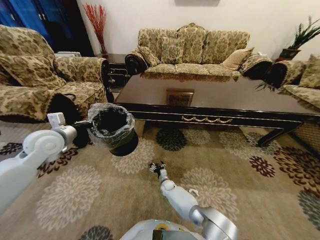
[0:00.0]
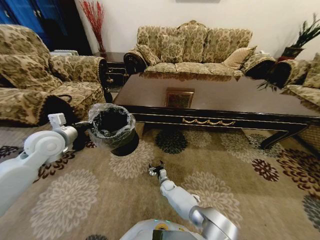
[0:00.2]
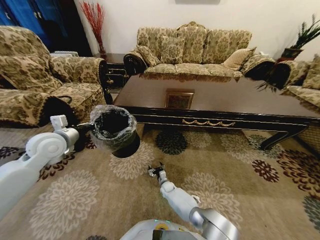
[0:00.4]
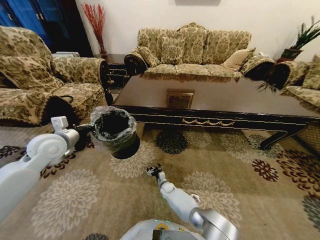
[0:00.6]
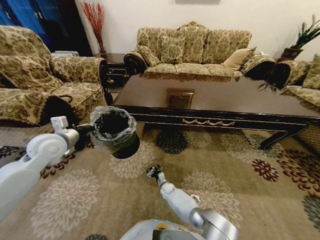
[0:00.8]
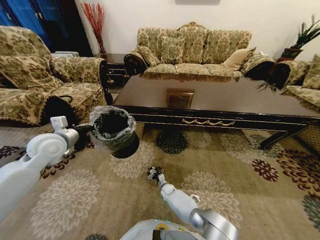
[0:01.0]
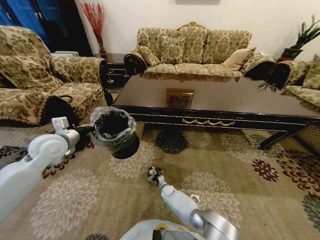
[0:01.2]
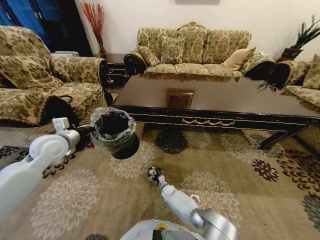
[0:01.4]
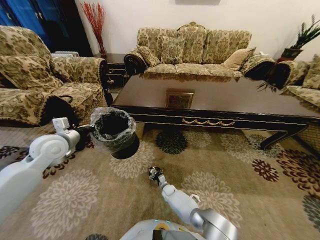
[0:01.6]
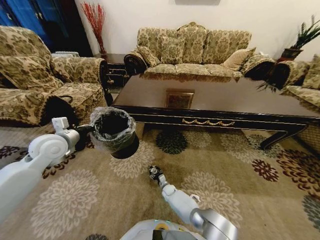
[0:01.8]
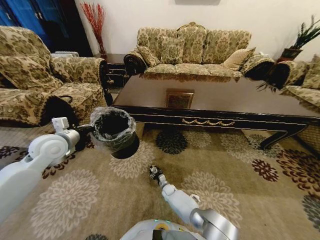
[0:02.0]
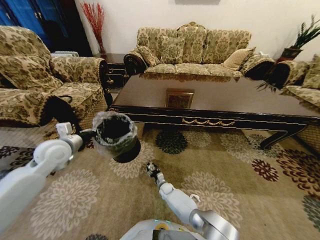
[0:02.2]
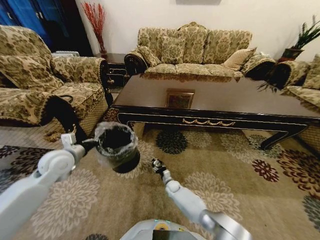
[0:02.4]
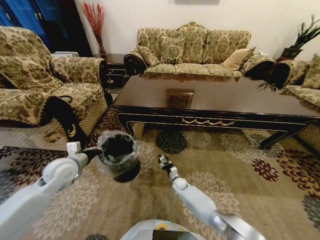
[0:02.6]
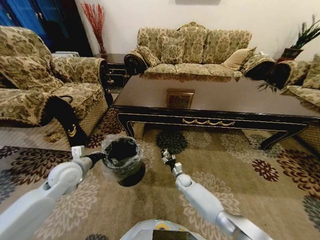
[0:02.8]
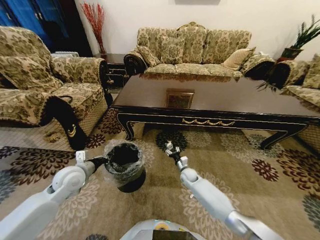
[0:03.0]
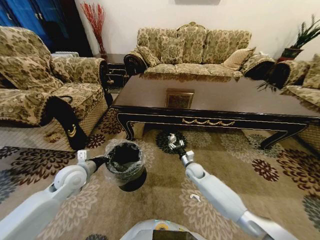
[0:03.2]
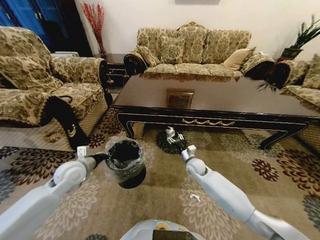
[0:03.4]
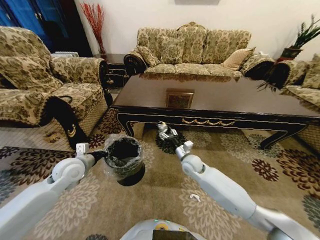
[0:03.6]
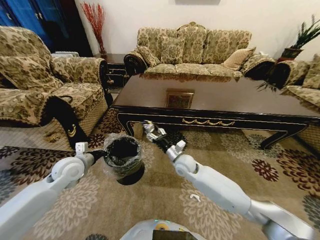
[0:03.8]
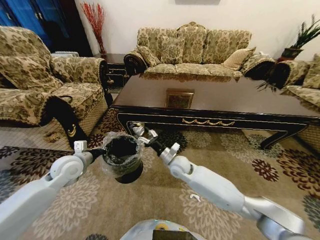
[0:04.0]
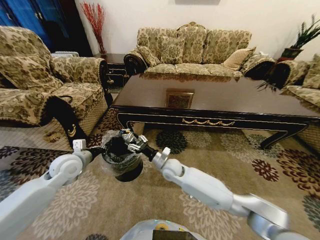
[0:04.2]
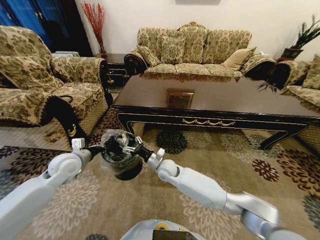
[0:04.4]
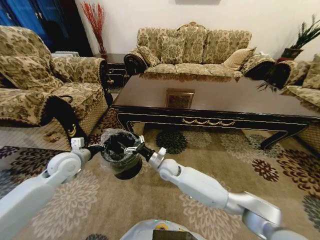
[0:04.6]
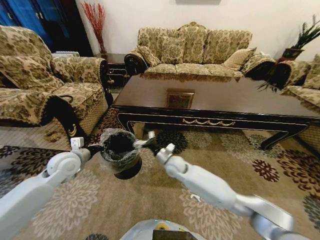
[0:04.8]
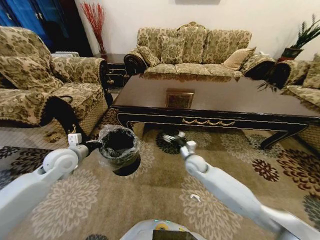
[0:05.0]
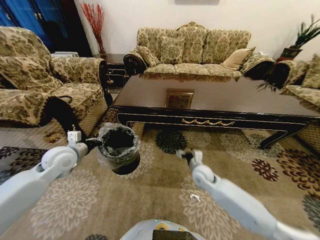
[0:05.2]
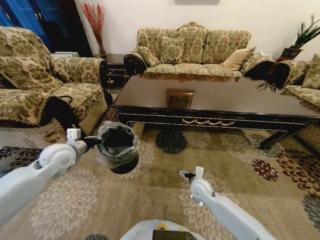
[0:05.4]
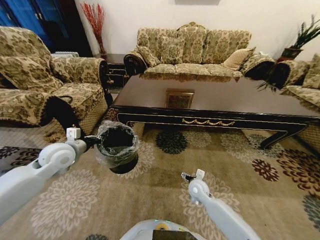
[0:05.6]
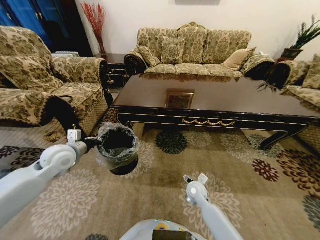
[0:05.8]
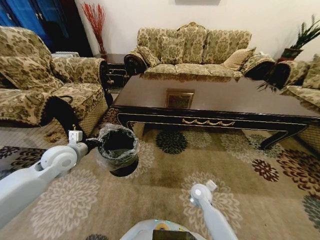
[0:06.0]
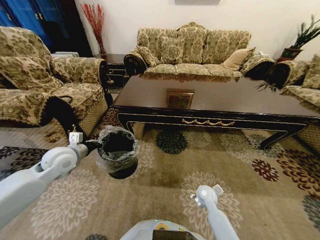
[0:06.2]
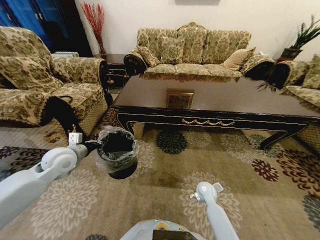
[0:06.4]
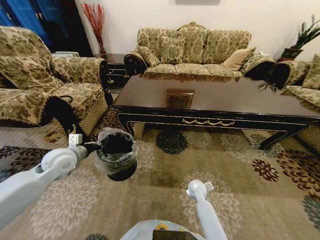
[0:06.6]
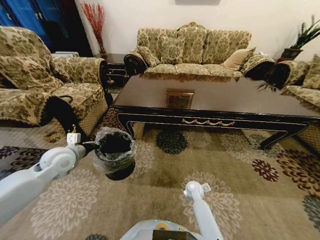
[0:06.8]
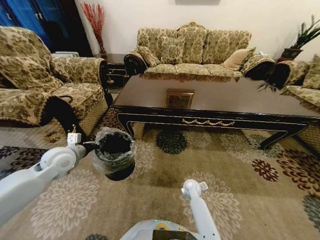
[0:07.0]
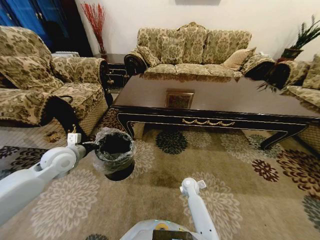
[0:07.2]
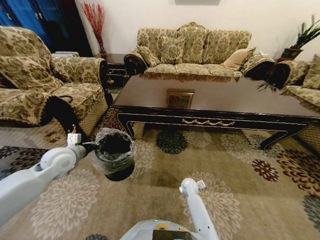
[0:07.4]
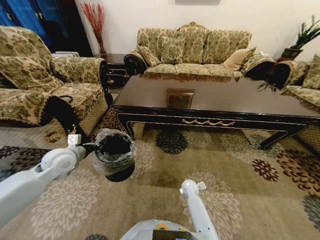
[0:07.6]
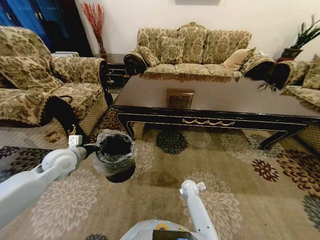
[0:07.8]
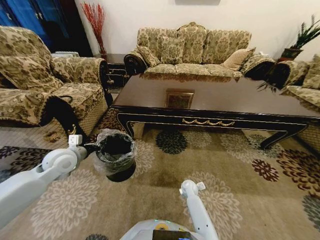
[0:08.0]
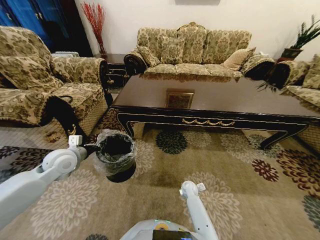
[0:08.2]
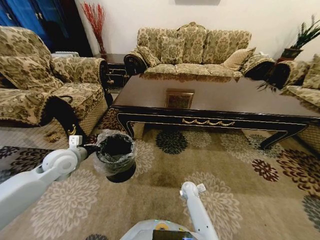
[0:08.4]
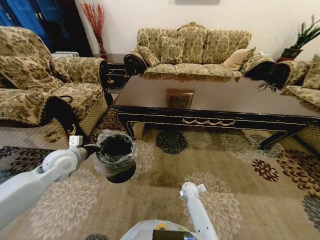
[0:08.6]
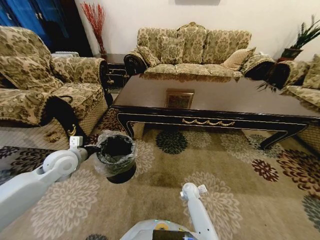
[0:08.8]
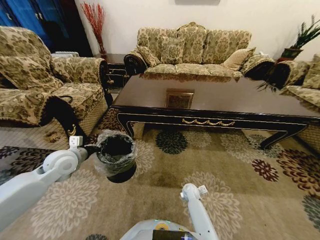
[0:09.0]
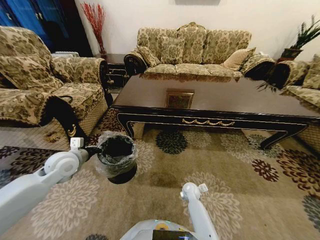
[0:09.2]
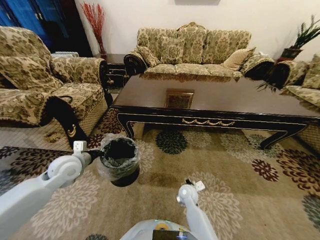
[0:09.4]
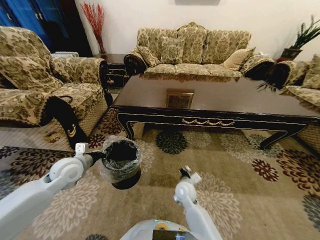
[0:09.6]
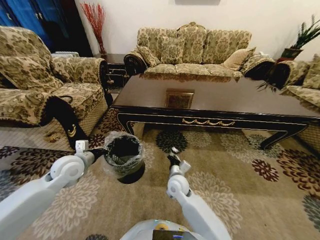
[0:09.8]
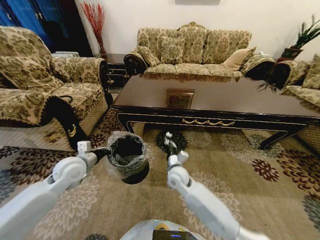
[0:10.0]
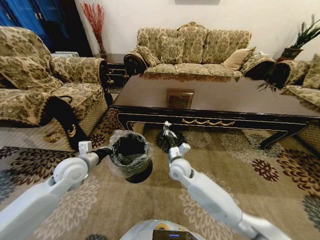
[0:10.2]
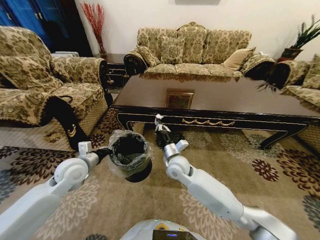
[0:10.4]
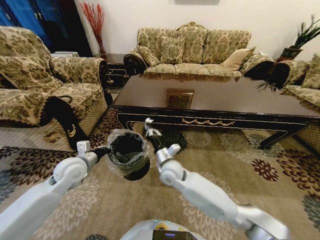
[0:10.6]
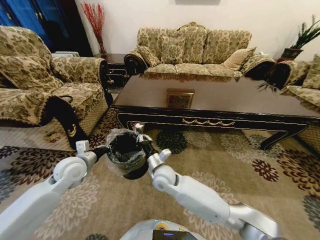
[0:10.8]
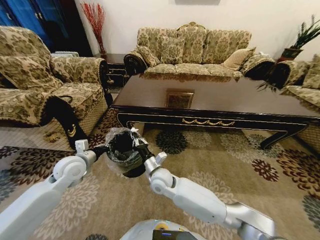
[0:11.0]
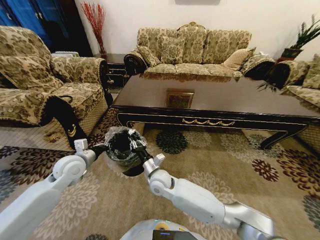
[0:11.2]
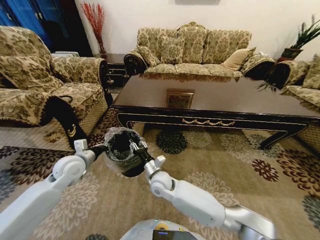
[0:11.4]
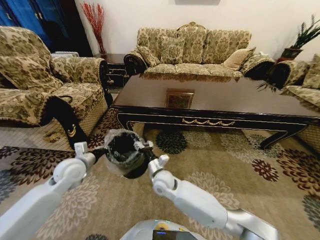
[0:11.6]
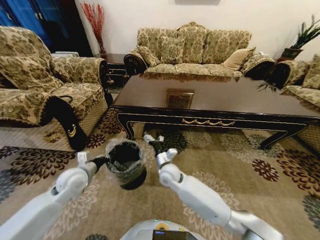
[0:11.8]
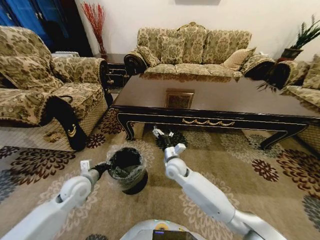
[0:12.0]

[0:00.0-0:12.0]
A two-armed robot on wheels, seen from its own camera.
Task of the whole recording: Move to the front of the table and pick up the trash from the floor, then place it into the trash bin.
0:01.6 to 0:03.0: The left gripper travels downward and backward by some 15 cm, while the right gripper goes about 20 cm upward and to the right.
0:03.0 to 0:04.4: The right gripper is displaced to the left and upward by approximately 20 cm, while the left gripper changes place by some 5 cm.
0:04.4 to 0:06.0: The right gripper heads to the right, downward and backward, covering roughly 20 cm.
0:06.0 to 0:07.6: The right gripper moves downward and forward, some 10 cm.
0:07.6 to 0:09.0: The right gripper closes up.
0:09.0 to 0:10.4: The right gripper moves upward and to the left, some 30 cm. Meanwhile the left gripper ends up approximately 5 cm from where it was.
0:10.4 to 0:12.0: The right gripper travels to the left and back again, some 10 cm each way, and opens its fingers. The left gripper travels downward by some 10 cm.

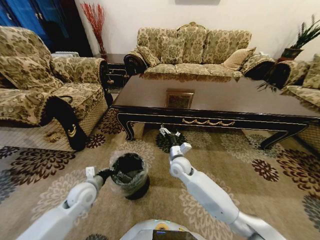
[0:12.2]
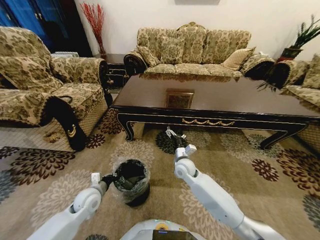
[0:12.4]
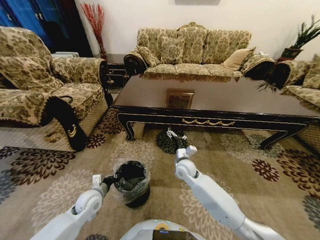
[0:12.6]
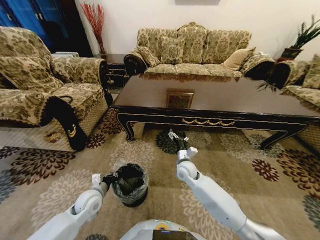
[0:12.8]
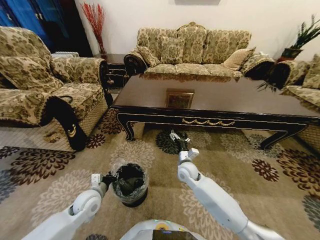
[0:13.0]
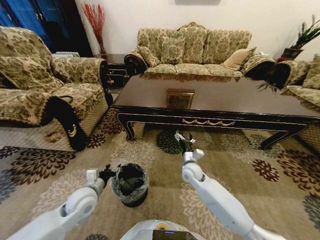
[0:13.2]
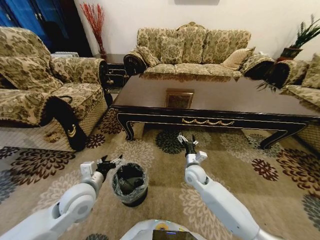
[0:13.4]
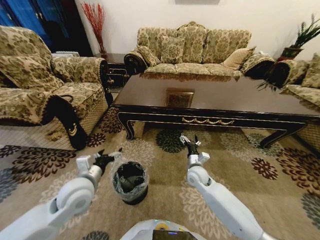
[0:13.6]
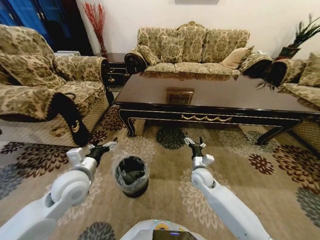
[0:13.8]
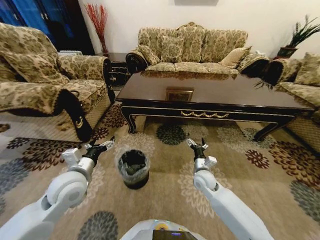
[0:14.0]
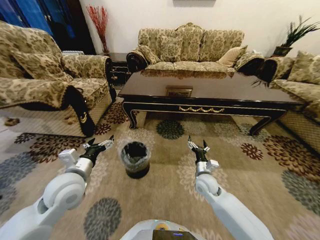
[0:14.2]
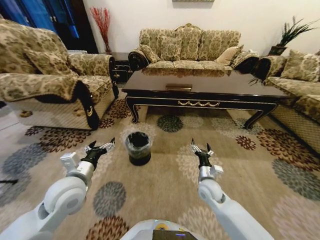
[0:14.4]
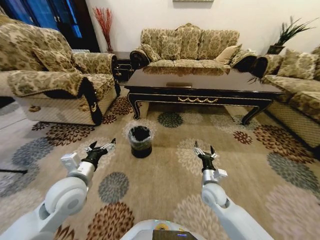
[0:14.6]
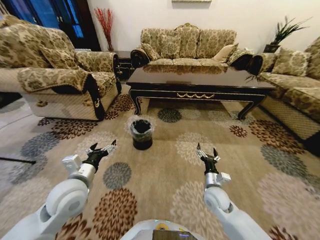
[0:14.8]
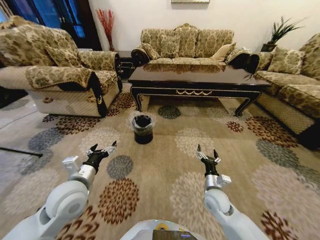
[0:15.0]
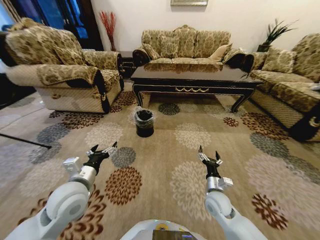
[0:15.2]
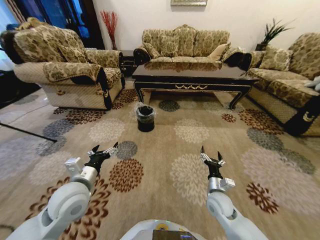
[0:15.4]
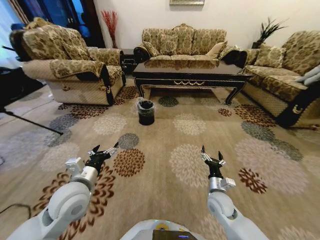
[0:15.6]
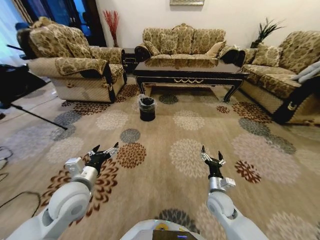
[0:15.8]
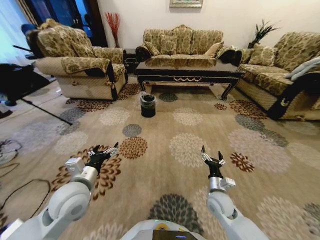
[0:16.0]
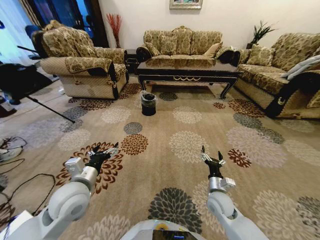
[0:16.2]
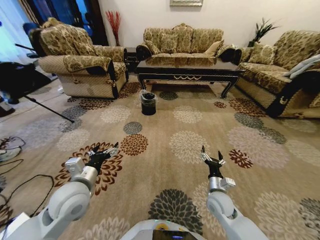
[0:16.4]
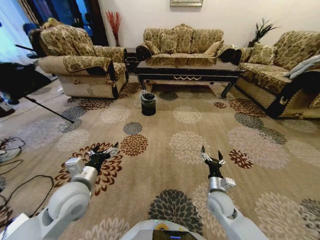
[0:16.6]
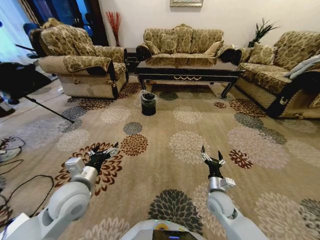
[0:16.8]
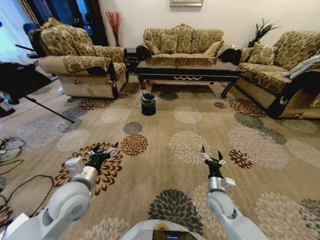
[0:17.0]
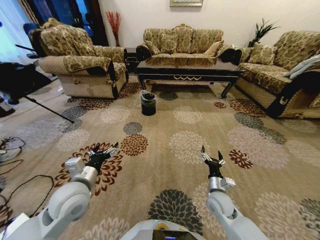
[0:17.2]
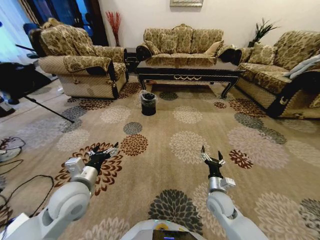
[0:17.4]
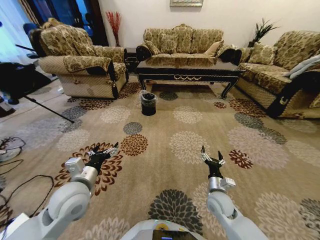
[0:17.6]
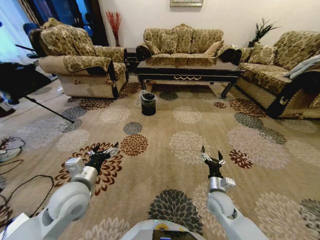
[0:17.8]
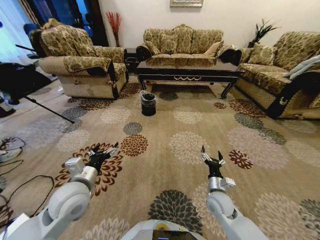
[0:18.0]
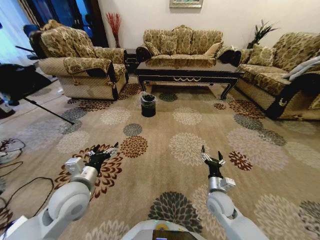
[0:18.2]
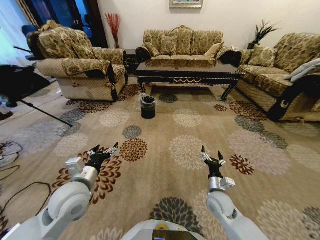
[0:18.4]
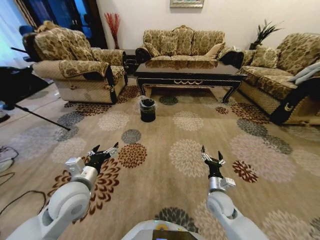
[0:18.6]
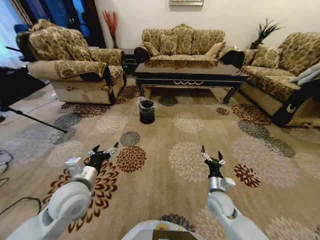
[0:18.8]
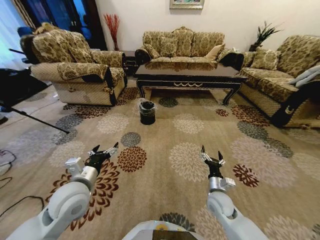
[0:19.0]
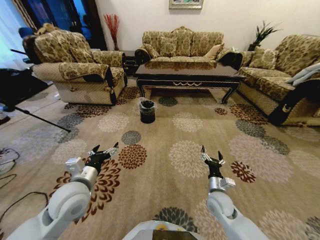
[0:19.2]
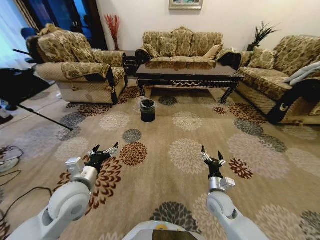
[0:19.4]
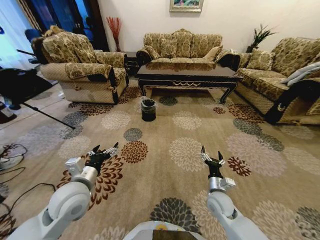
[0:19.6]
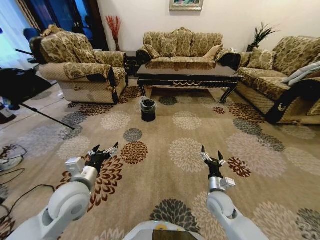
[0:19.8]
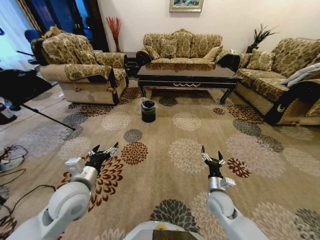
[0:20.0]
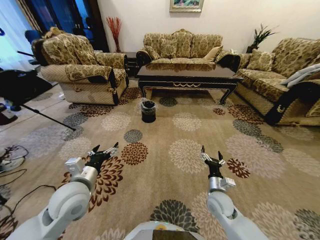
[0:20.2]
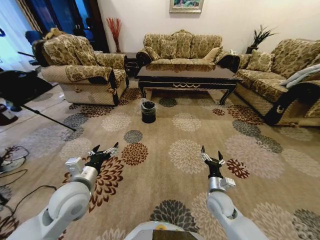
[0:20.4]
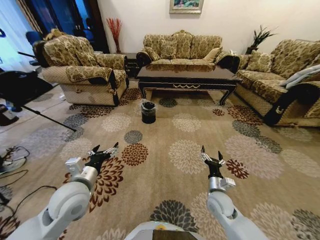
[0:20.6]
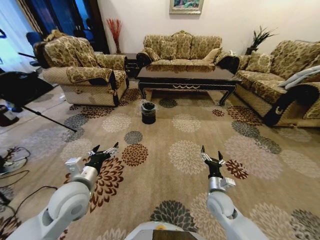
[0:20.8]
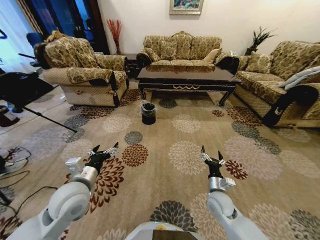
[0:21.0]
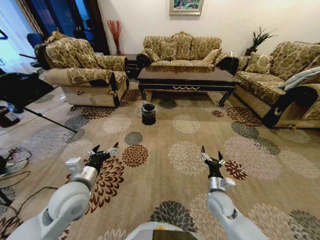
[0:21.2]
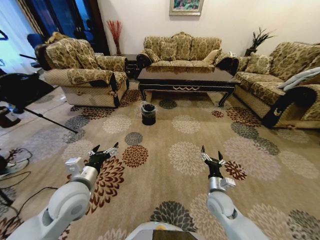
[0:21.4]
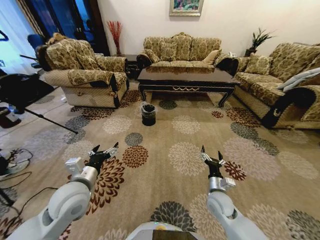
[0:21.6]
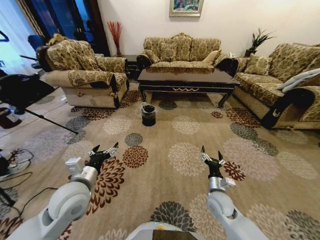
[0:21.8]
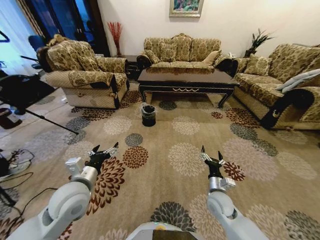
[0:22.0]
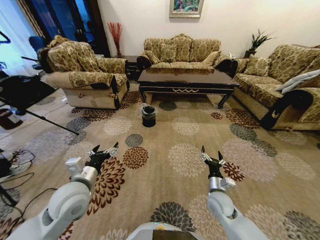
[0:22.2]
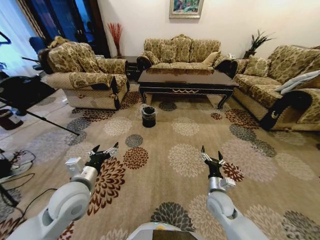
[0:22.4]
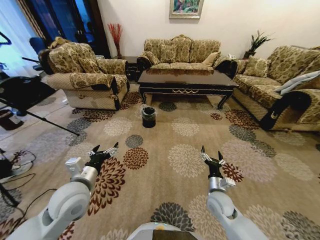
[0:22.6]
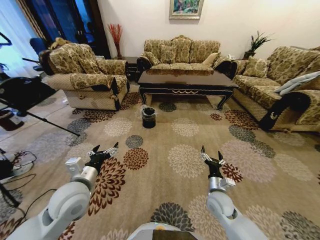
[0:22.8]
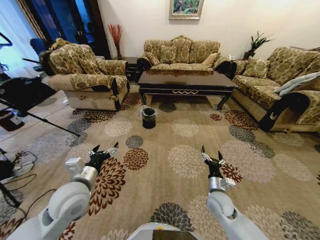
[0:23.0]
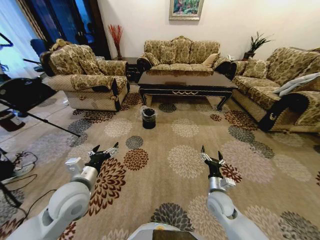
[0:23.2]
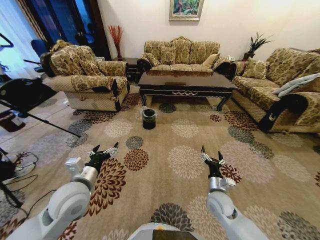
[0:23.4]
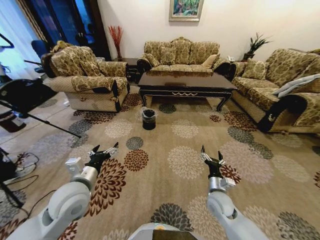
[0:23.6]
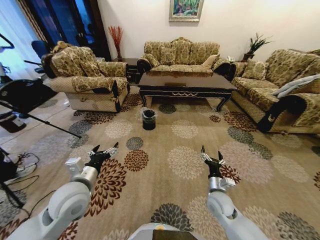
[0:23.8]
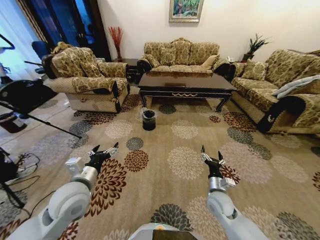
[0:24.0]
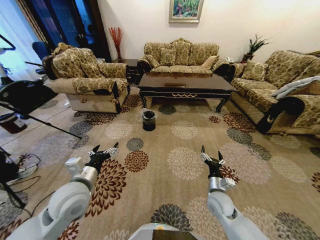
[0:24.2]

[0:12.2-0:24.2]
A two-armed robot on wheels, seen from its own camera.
Task of the whole recording: Move to the front of the table and pick up the trash from the floor, then place it into the trash bin.
0:12.2 to 0:13.8: The left gripper heads upward, covering approximately 15 cm, and opens its fingers; the right gripper heads to the right, covering about 10 cm.
0:13.8 to 0:15.2: The right gripper shifts approximately 10 cm backward.
0:16.6 to 0:18.2: Neither gripper changes place.
